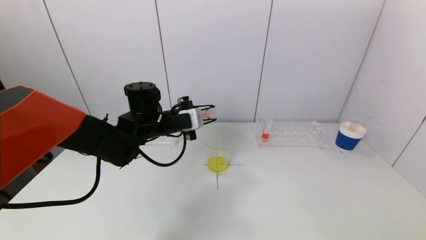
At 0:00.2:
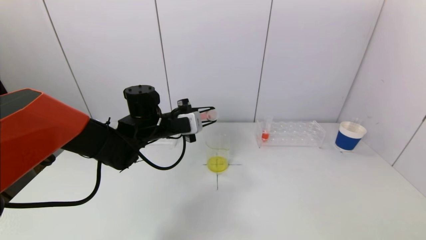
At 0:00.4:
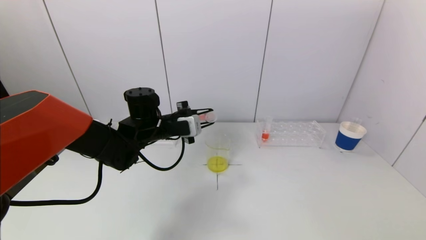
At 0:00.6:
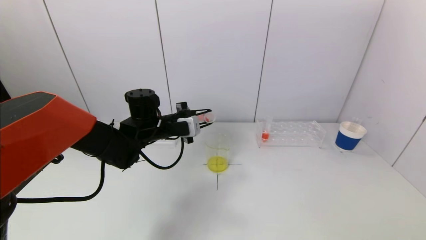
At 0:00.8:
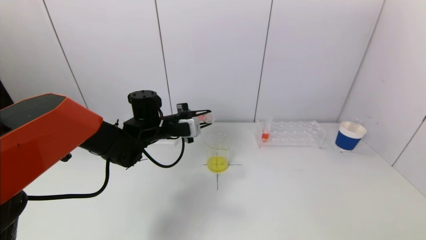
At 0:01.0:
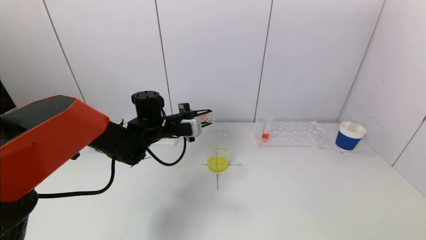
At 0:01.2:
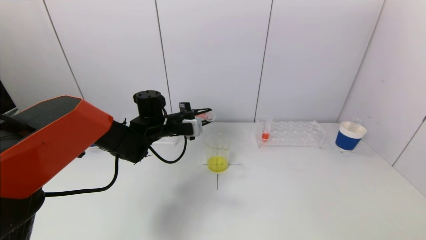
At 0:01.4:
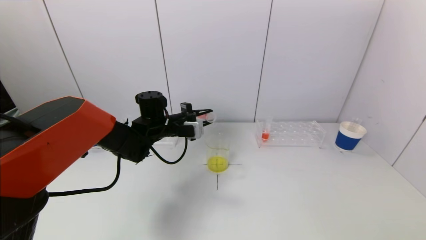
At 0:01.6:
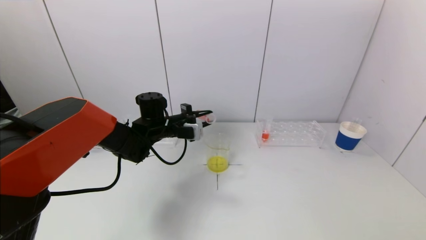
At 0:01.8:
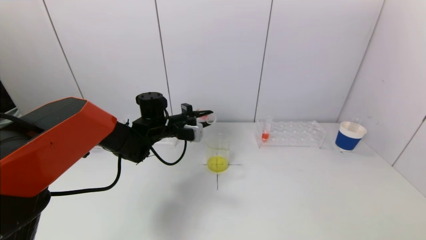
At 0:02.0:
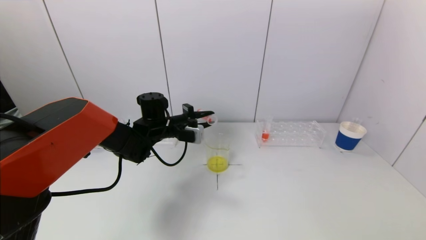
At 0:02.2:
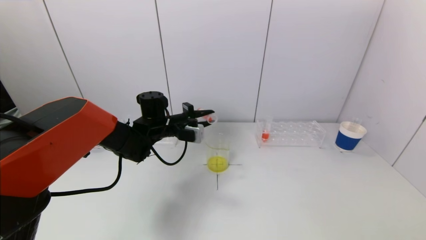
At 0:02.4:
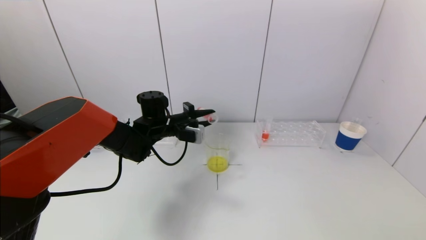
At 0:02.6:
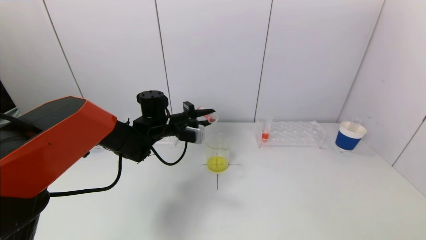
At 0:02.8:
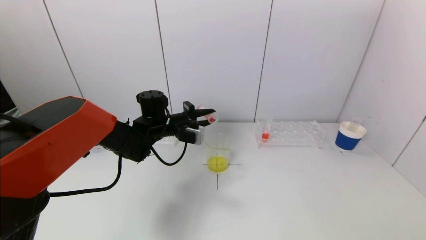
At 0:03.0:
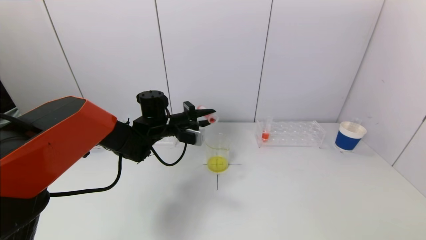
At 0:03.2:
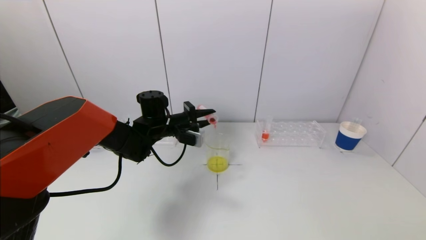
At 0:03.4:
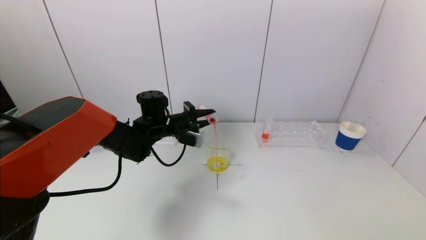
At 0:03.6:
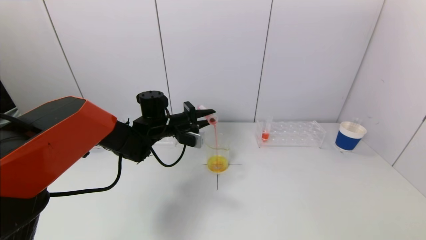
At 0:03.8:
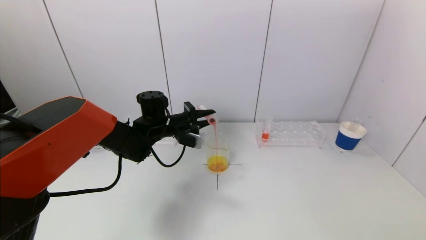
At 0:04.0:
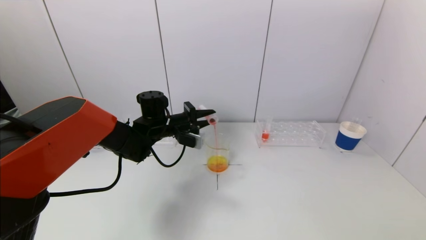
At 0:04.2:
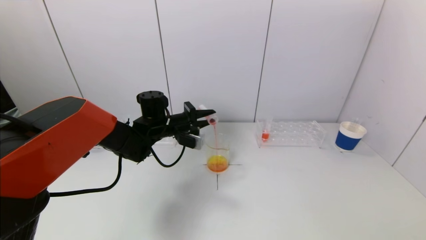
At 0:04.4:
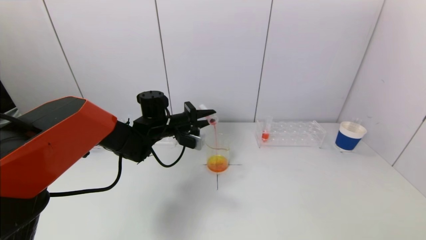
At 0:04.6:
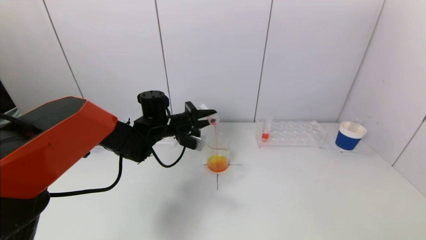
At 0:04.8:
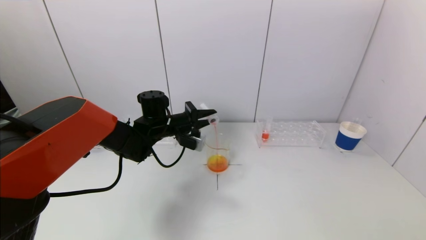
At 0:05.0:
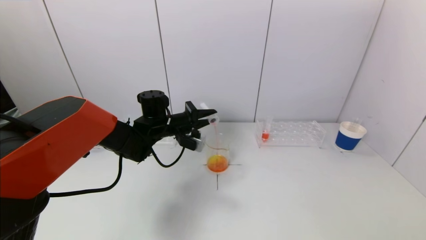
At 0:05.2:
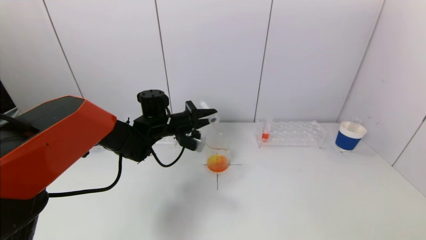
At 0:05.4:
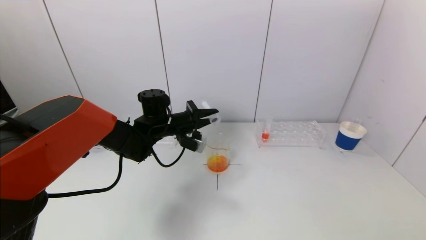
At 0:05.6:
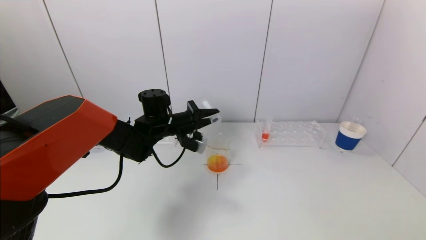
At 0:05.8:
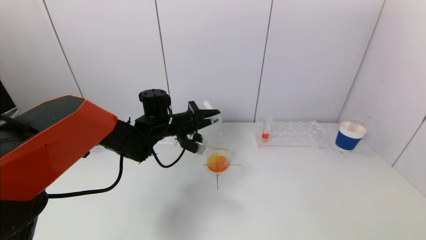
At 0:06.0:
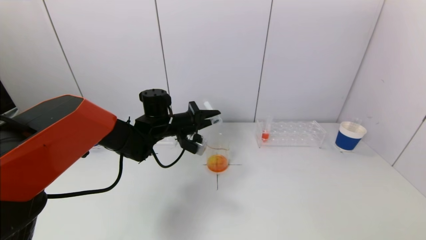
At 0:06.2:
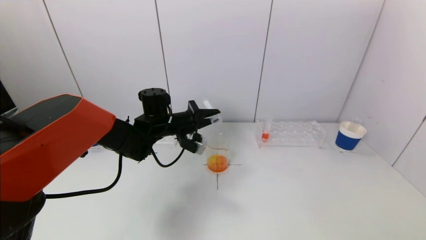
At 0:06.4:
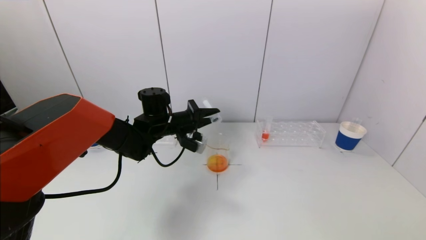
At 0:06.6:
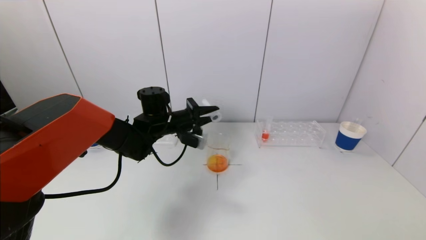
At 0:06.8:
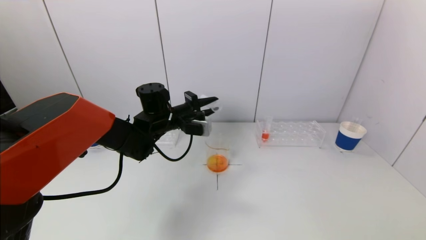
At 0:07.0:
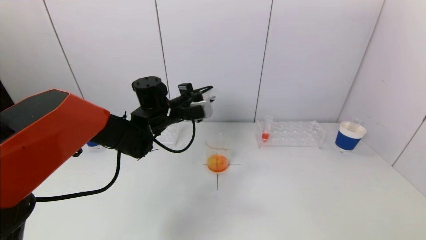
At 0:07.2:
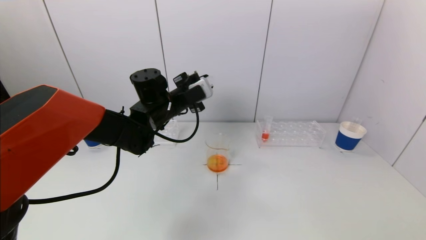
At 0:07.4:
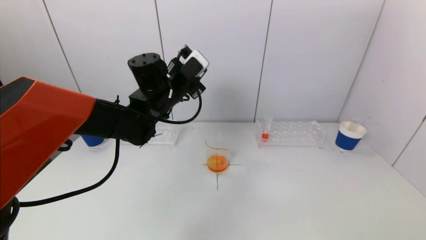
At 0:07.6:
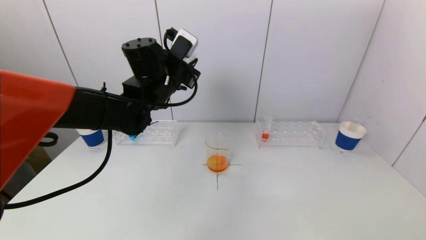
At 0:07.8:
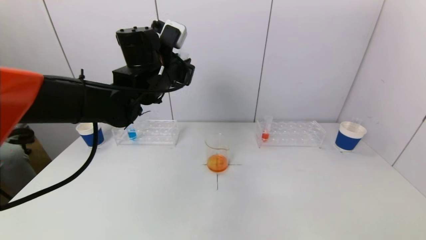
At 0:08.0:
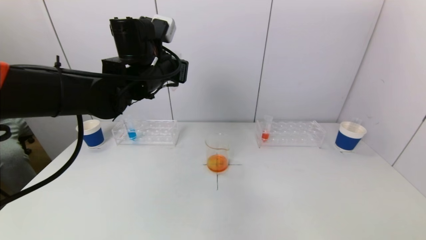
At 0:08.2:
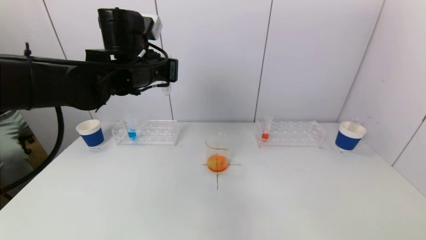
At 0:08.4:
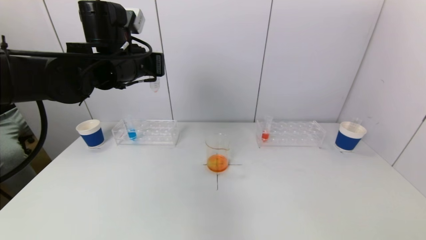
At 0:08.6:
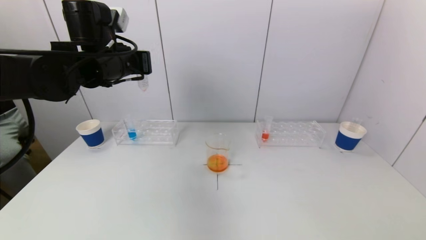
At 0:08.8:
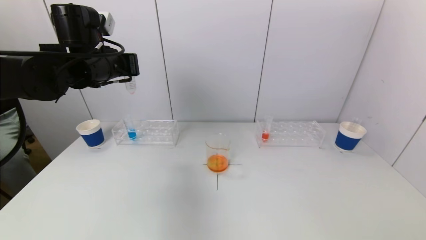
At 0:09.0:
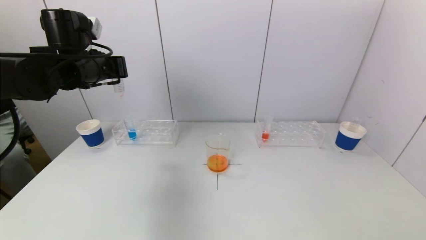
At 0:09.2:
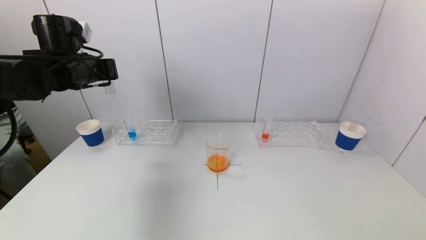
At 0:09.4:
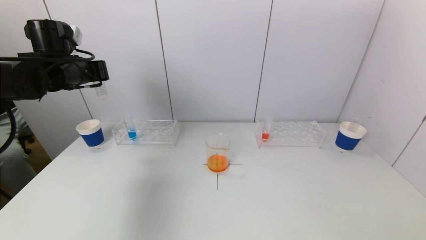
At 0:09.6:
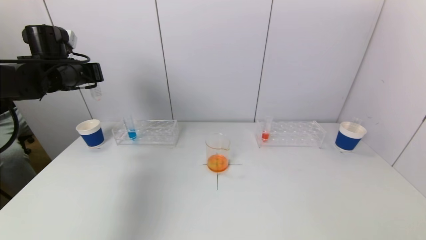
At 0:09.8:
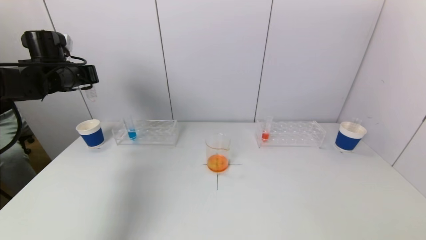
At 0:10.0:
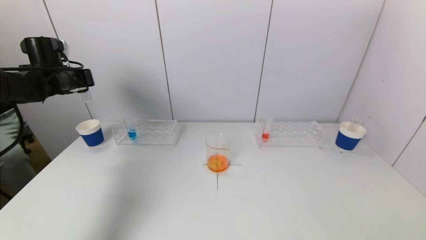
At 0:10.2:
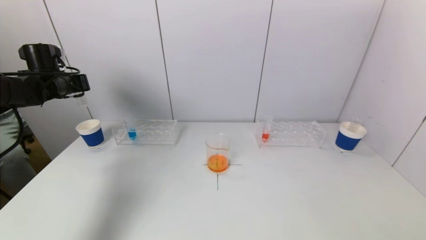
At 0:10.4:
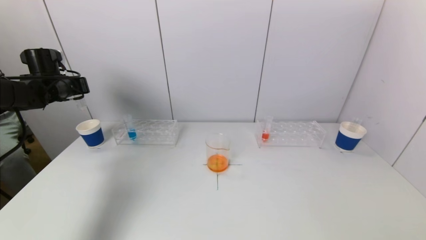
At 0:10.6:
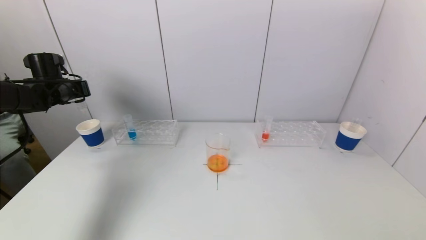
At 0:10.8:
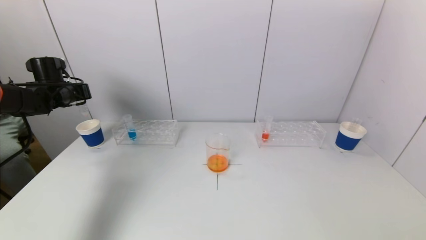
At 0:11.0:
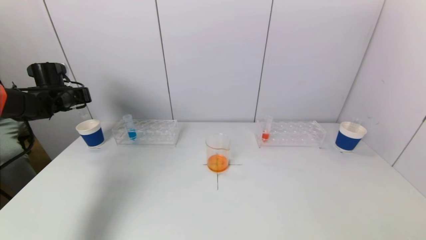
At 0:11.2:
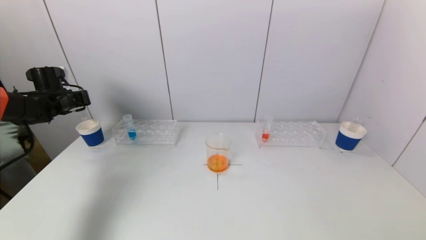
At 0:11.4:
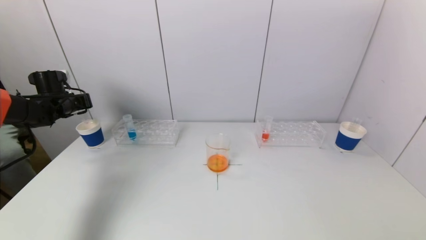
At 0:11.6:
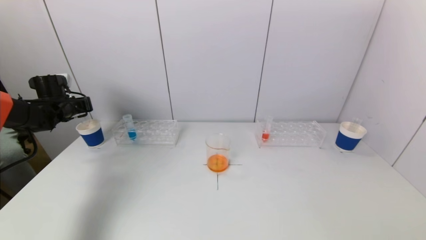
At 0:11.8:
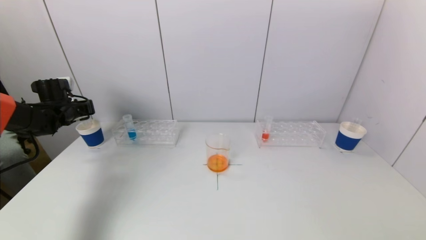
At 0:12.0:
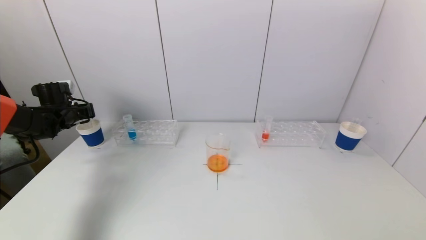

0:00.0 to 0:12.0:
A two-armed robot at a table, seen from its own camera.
Task of the whole recording: pick up a test tube with pigment on left test tube rack and a test tube with pigment on right test tube rack by grippers and pour them into the beaker.
Step, 0:00.0 to 0:06.2: Pour the red reagent into the graduated cylinder with the left gripper.
0:00.0 to 0:01.6: The left gripper moves forward, about 5 cm.
0:01.6 to 0:03.0: There are only small adjustments of the grippers.
0:04.4 to 0:06.0: The grippers move only a little.
0:06.0 to 0:07.6: The left gripper is displaced upward by roughly 10 cm.
0:07.6 to 0:09.0: The left gripper moves to the left, roughly 15 cm.
0:09.0 to 0:10.4: The left gripper is displaced to the left, forward and downward by approximately 20 cm.
0:10.4 to 0:12.0: The left gripper moves downward, some 10 cm.

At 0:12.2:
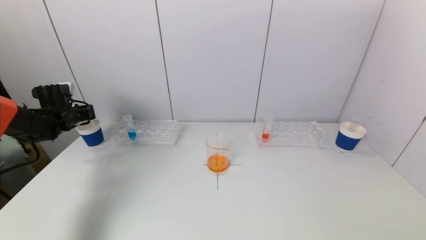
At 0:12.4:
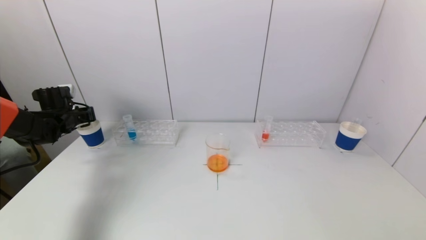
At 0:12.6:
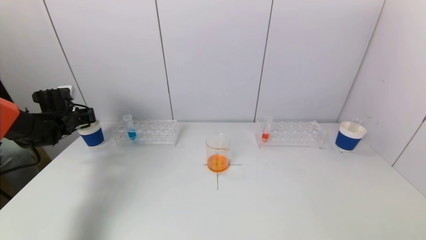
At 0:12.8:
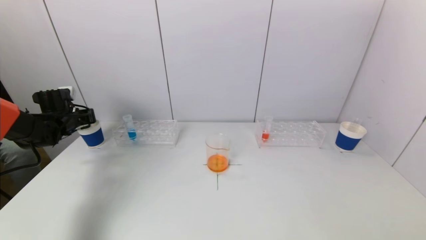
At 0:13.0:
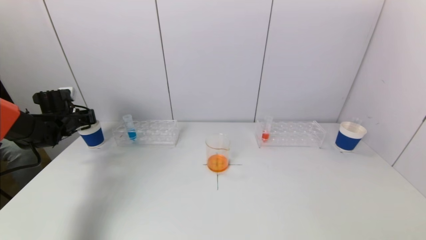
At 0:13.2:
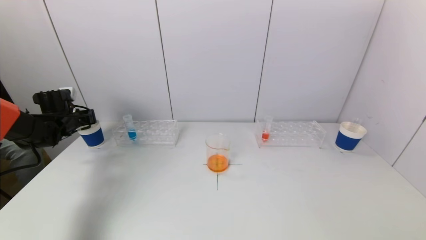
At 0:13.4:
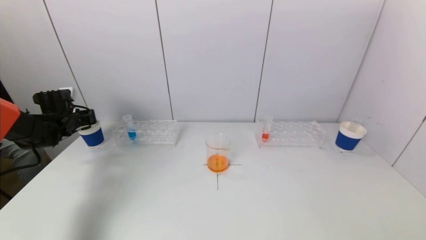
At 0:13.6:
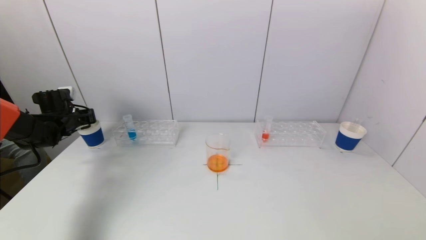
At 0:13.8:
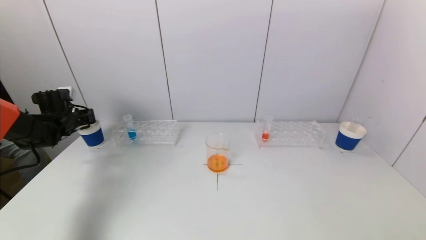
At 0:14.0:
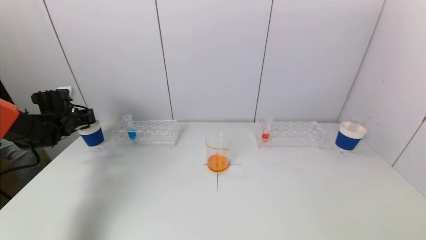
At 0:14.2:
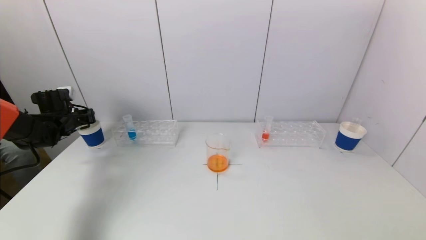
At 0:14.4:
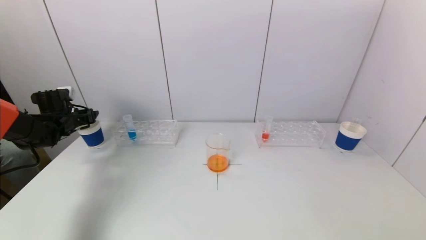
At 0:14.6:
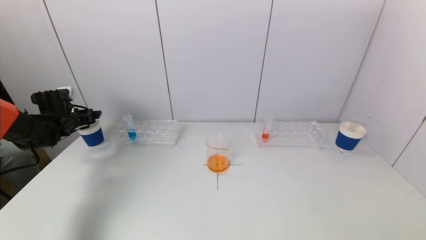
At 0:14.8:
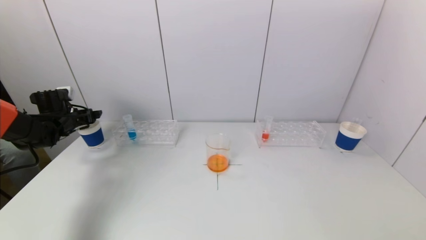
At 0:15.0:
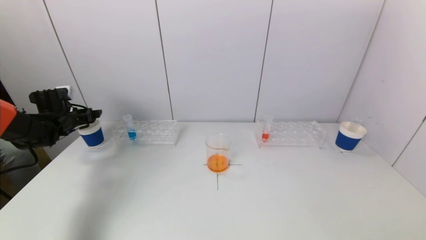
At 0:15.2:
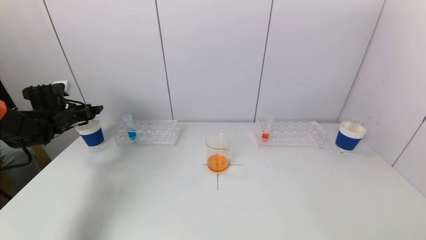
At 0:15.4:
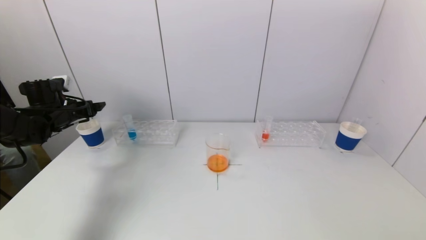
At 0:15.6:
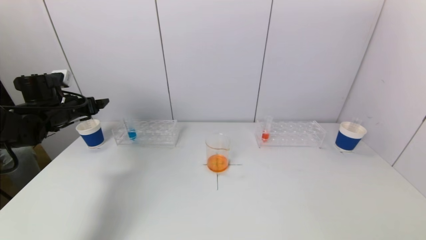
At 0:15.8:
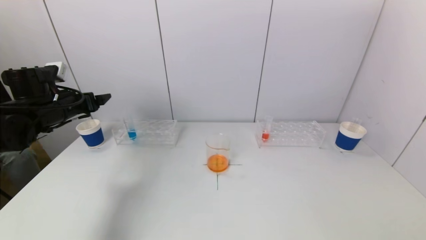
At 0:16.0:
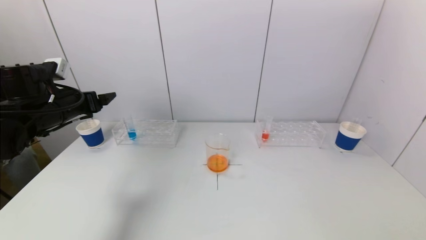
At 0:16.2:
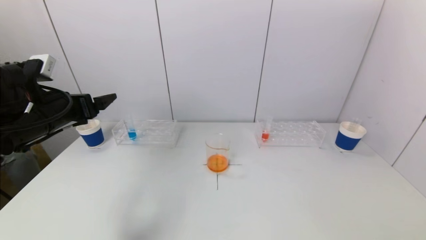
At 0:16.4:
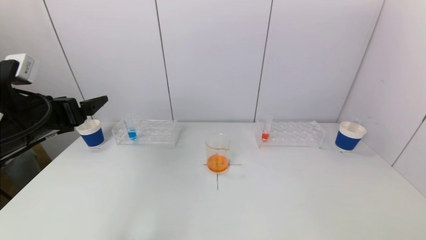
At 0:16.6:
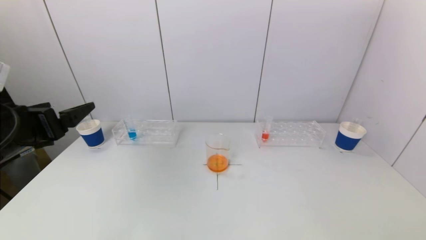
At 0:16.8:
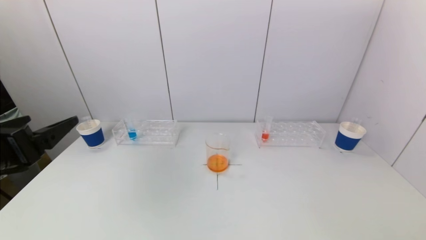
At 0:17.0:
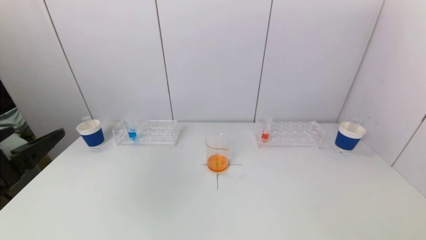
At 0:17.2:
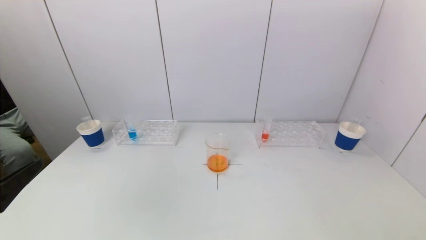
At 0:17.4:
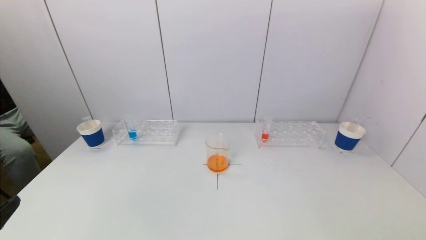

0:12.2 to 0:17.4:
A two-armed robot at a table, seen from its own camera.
Task of the whole recording: pick up a test tube with pigment on left test tube rack and a test tube with pigment on right test tube rack by grippers and pour them into the beaker.
0:12.2 to 0:14.0: The grippers move only a little.
0:14.0 to 0:15.6: The left gripper moves upward and backward, some 10 cm, and opens up.
0:15.6 to 0:17.4: The left gripper goes some 40 cm backward.
